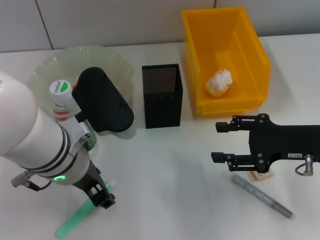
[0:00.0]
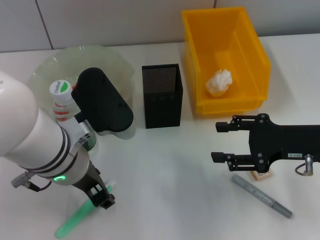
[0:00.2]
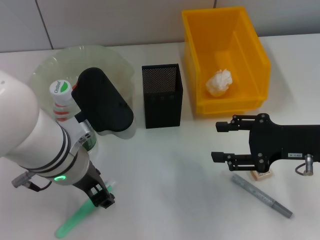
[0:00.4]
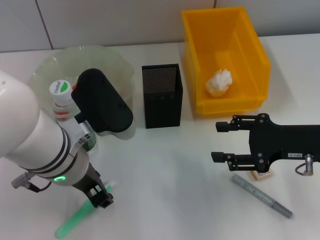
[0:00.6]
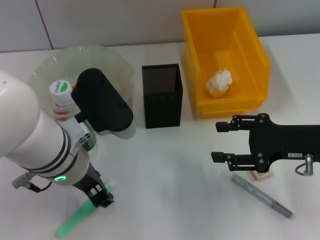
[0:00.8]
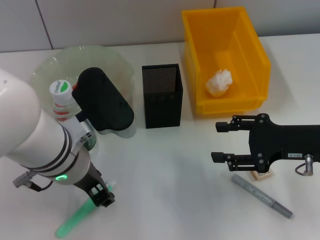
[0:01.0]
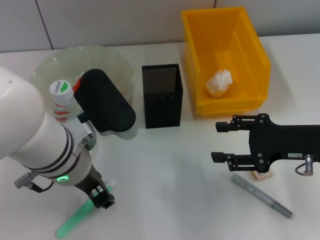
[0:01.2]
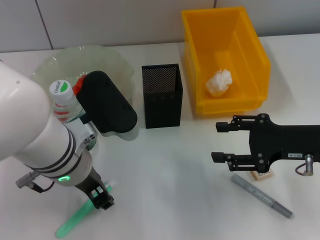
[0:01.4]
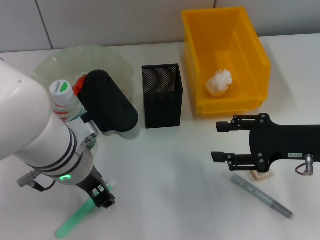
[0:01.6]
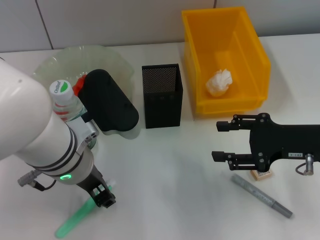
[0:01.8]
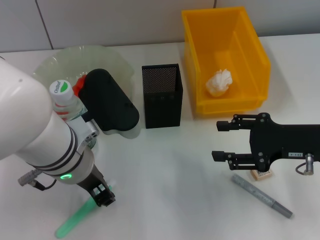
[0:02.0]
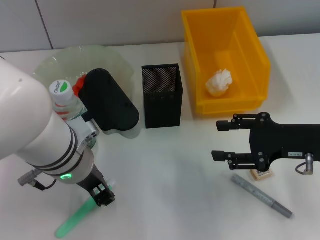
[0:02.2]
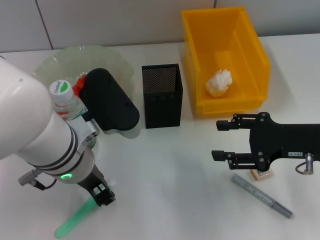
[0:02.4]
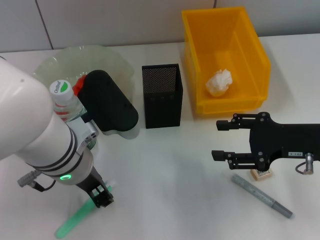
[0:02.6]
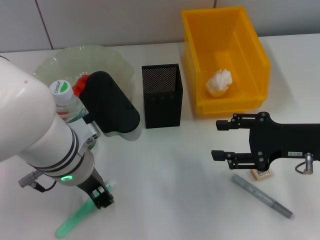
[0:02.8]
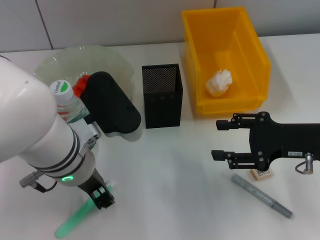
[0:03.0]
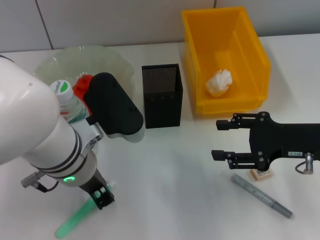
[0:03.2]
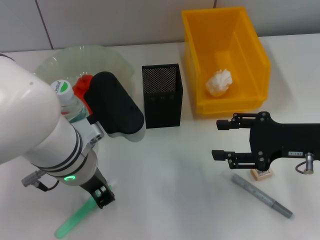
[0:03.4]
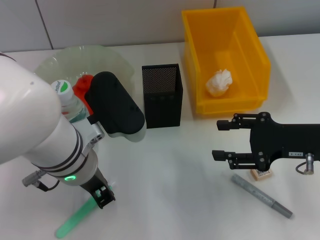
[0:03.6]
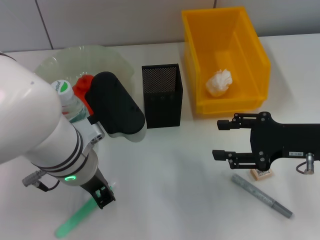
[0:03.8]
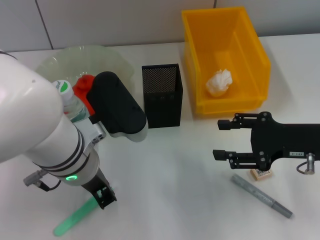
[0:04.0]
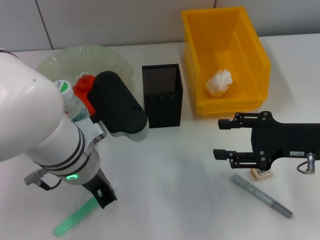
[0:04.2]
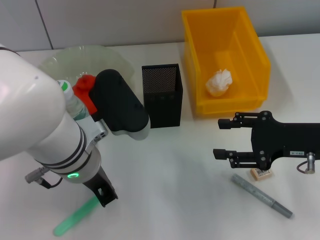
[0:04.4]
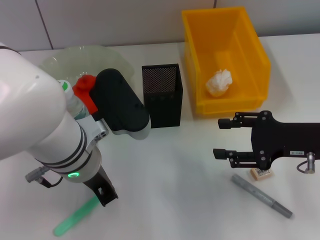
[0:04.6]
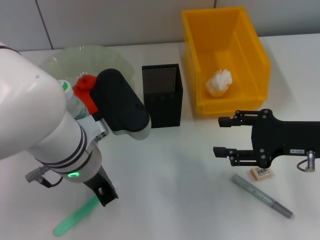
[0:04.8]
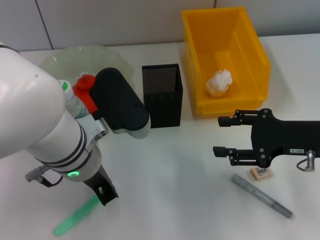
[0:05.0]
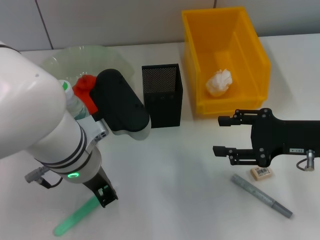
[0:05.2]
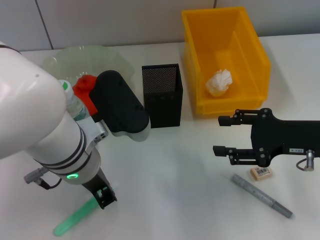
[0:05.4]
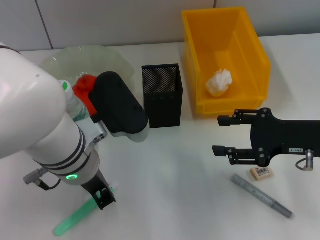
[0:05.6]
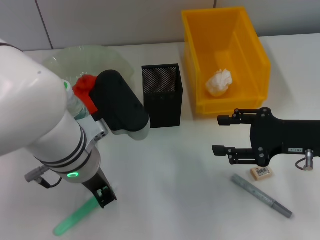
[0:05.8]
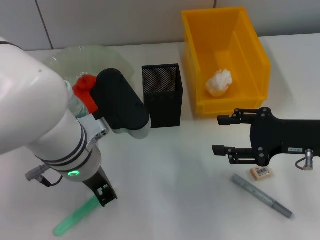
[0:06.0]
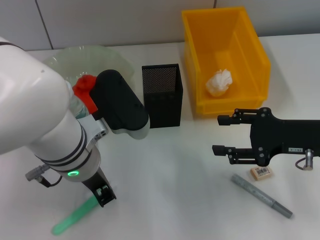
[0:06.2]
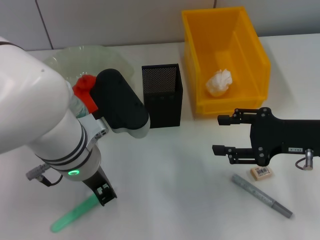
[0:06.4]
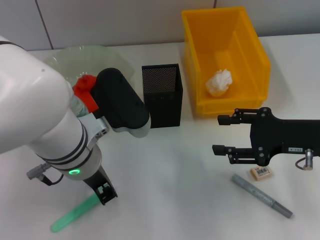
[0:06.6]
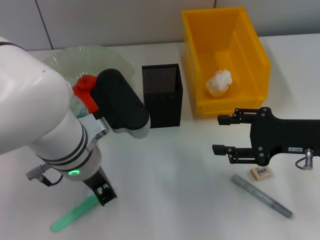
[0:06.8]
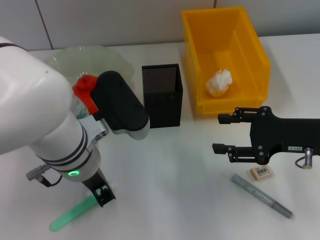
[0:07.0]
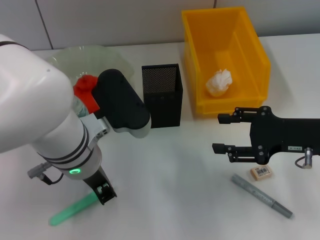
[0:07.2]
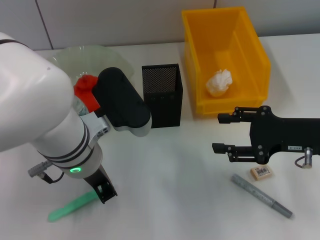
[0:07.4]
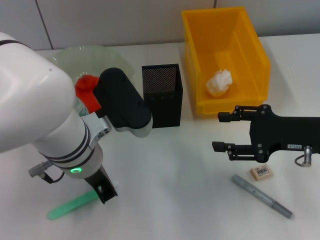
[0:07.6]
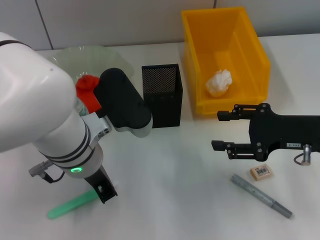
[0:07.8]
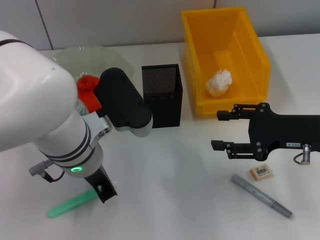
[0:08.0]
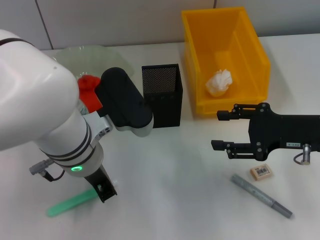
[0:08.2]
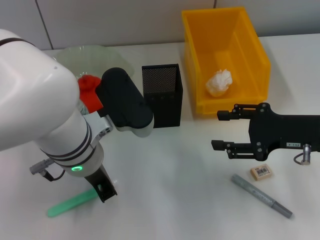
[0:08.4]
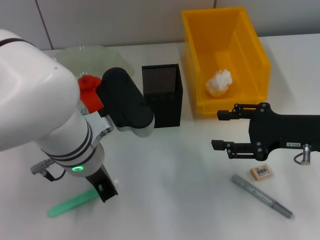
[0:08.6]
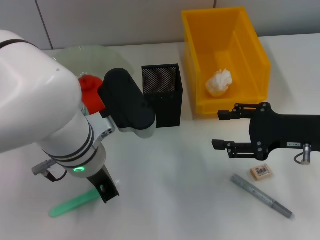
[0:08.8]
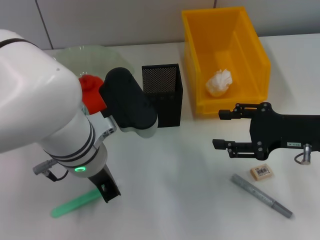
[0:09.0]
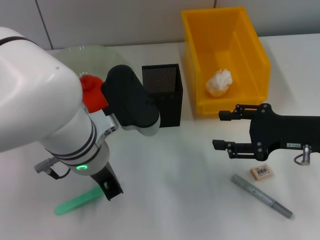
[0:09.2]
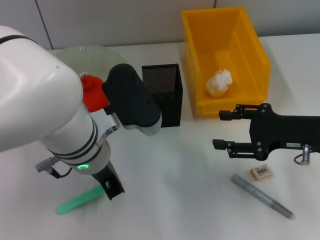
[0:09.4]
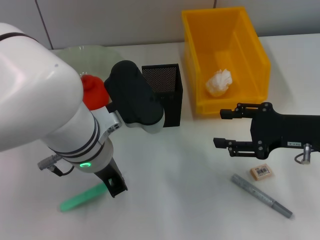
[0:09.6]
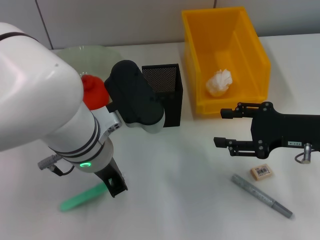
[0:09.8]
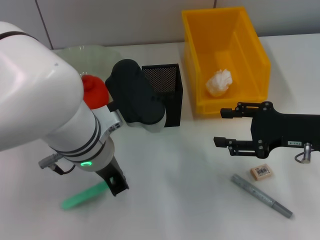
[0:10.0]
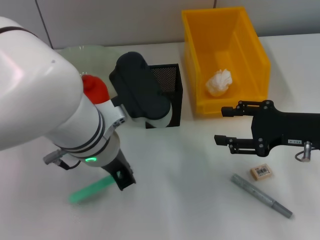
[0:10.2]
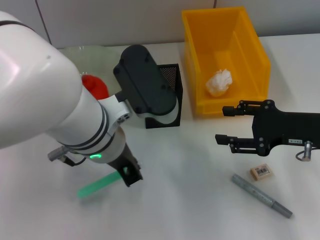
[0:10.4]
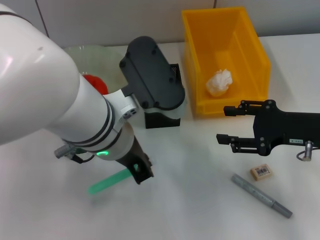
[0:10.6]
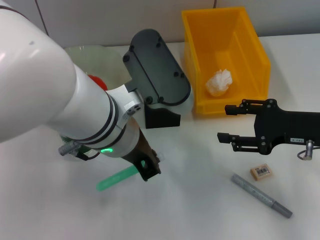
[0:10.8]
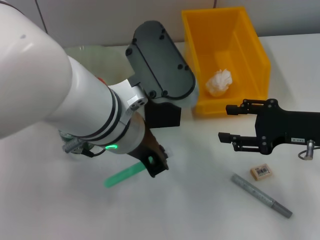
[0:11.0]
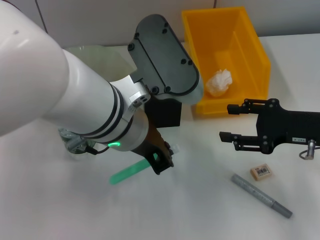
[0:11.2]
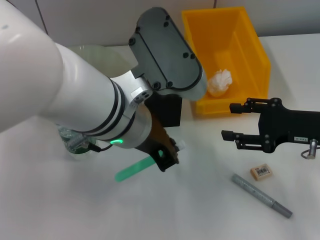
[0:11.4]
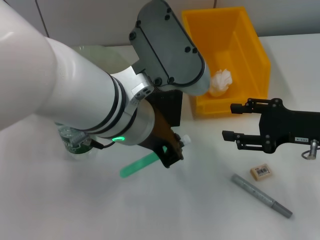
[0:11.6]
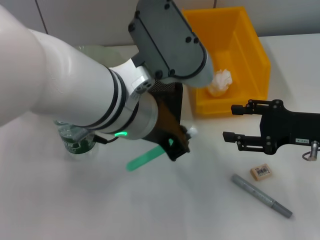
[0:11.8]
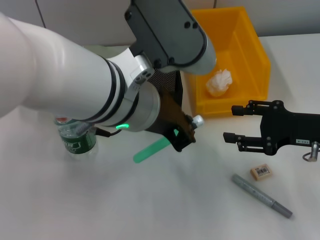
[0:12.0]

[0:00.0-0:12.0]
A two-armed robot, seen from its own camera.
Step, 0:00.0 to 0:07.6: Grab the blue utility knife with the left hand.
0:00.0 to 0:03.0: Both grippers stay about where they are.
0:03.0 to 0:04.4: The left gripper closes up.
0:04.4 to 0:09.0: Neither gripper changes place.
0:09.0 to 0:10.4: The grippers move only a little.
0:10.4 to 0:12.0: The left gripper moves upward, approximately 5 cm.

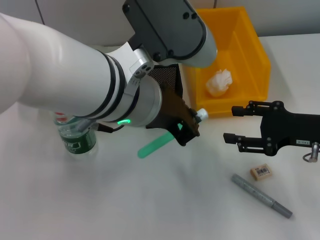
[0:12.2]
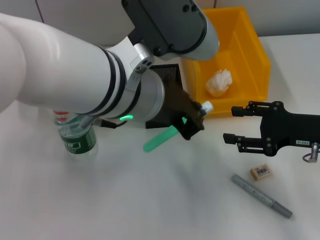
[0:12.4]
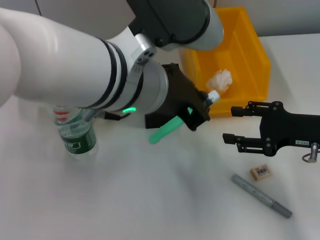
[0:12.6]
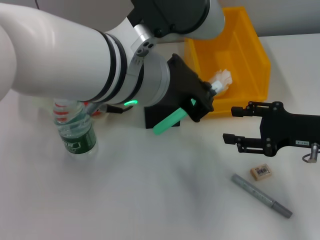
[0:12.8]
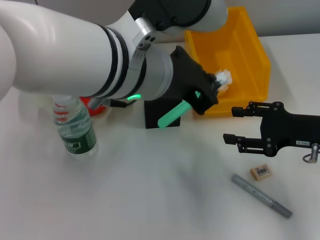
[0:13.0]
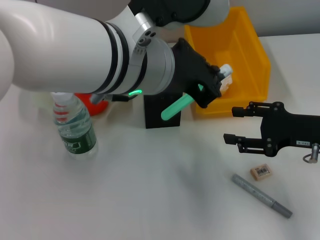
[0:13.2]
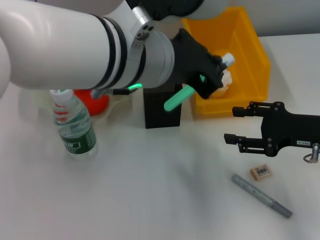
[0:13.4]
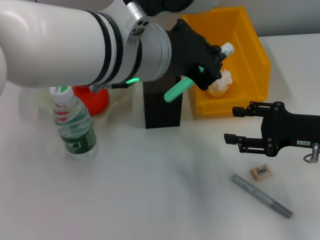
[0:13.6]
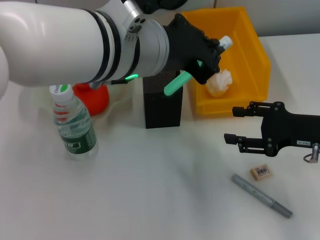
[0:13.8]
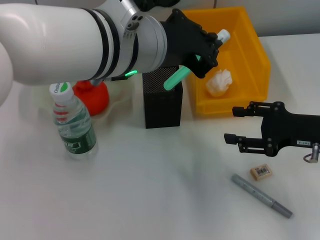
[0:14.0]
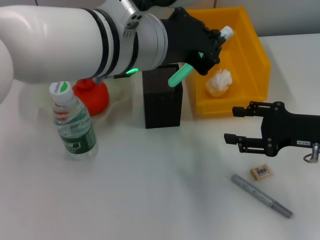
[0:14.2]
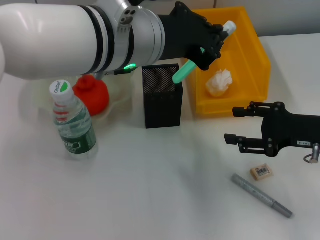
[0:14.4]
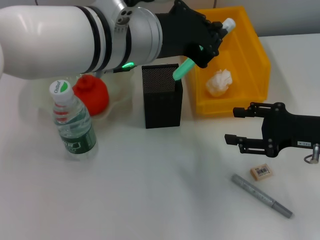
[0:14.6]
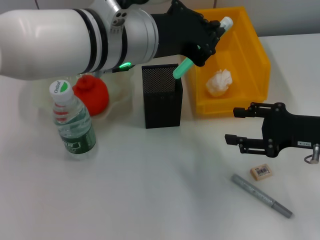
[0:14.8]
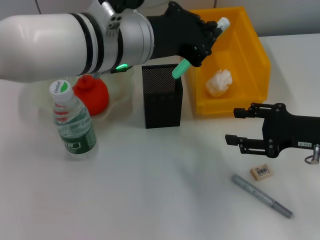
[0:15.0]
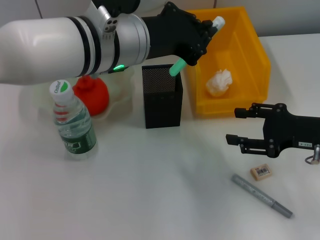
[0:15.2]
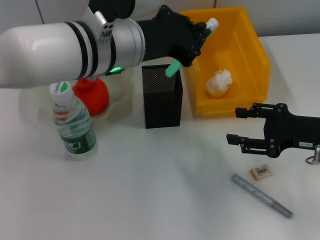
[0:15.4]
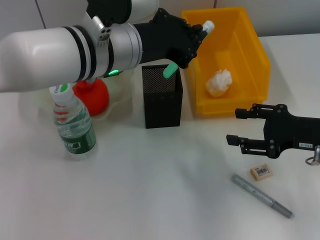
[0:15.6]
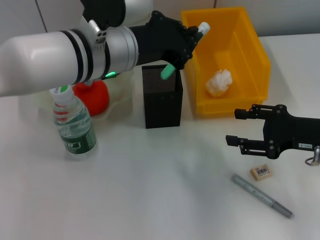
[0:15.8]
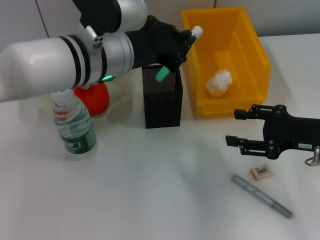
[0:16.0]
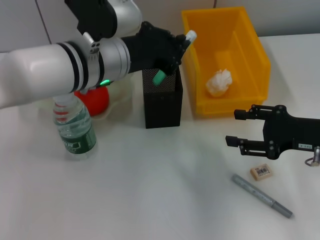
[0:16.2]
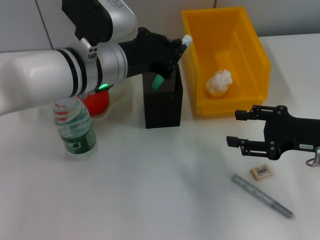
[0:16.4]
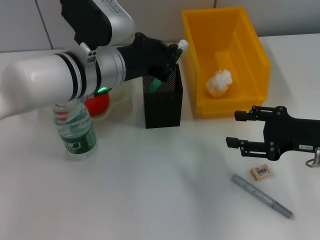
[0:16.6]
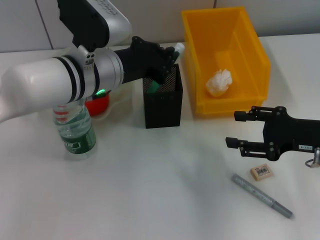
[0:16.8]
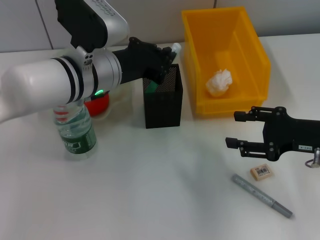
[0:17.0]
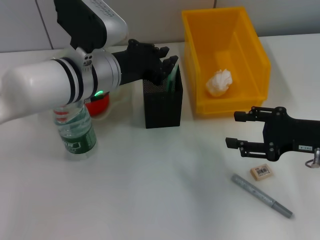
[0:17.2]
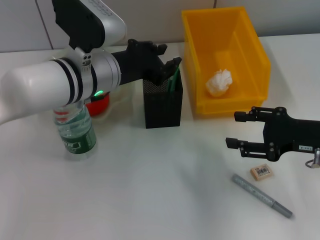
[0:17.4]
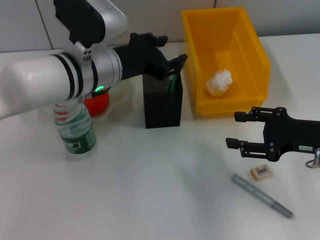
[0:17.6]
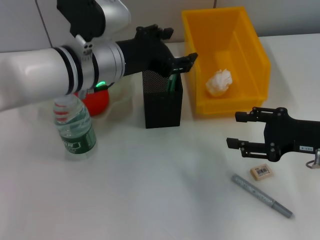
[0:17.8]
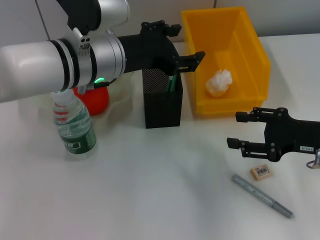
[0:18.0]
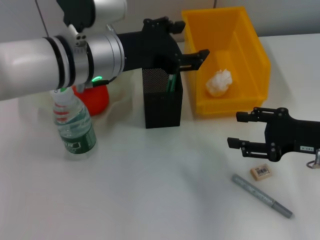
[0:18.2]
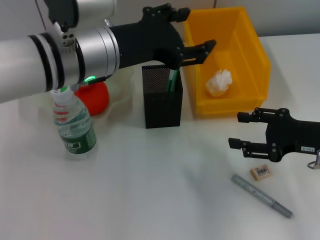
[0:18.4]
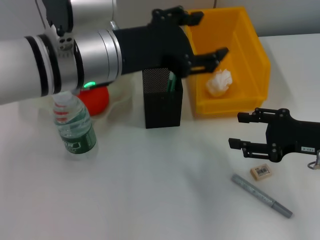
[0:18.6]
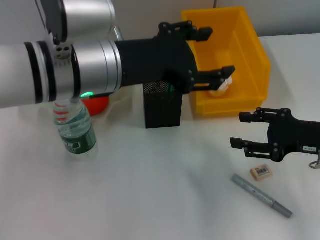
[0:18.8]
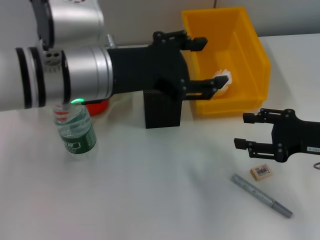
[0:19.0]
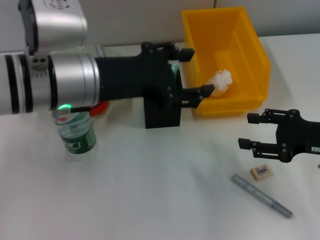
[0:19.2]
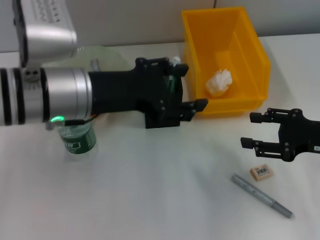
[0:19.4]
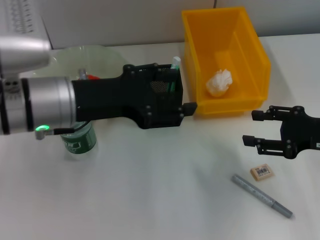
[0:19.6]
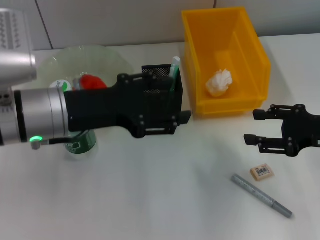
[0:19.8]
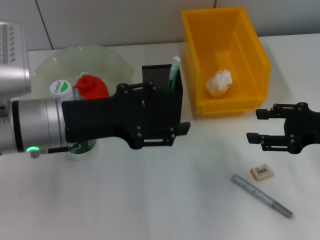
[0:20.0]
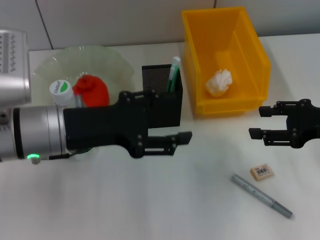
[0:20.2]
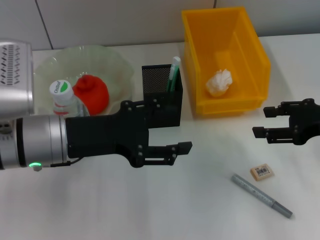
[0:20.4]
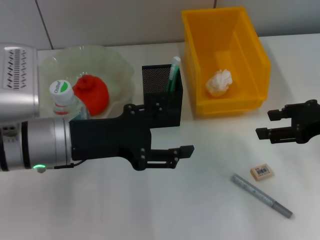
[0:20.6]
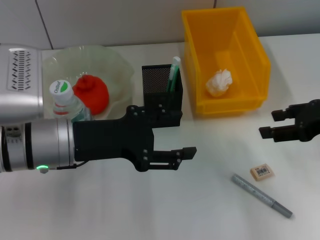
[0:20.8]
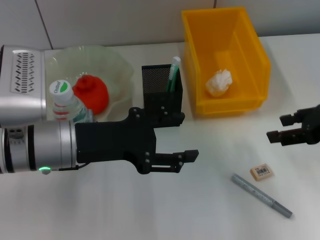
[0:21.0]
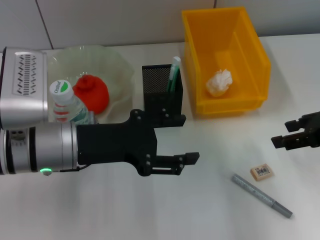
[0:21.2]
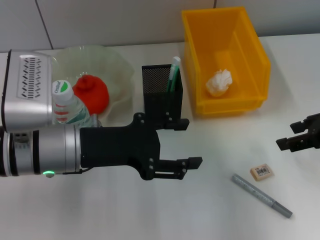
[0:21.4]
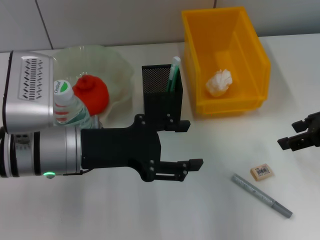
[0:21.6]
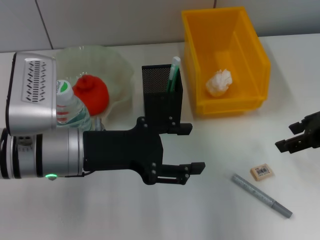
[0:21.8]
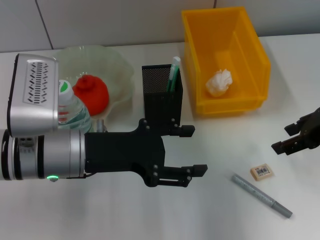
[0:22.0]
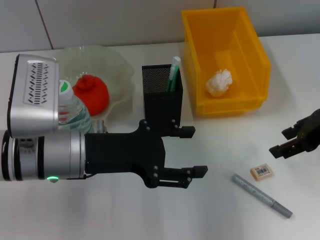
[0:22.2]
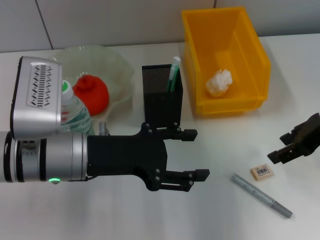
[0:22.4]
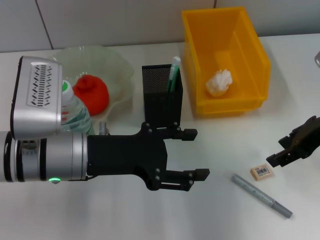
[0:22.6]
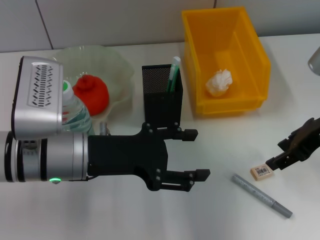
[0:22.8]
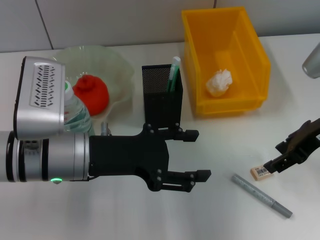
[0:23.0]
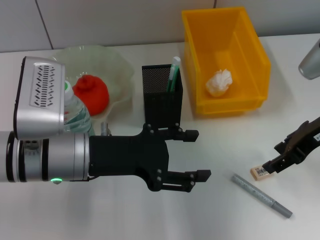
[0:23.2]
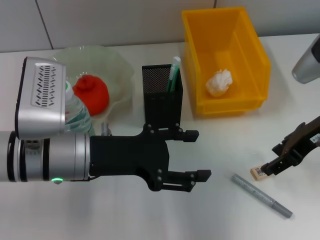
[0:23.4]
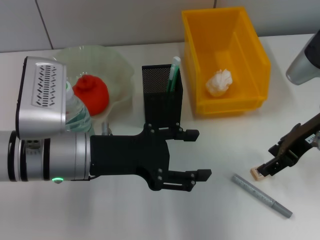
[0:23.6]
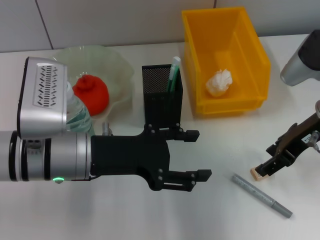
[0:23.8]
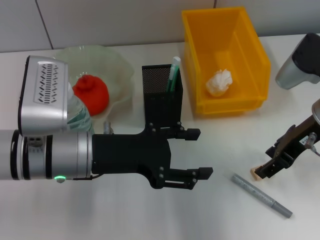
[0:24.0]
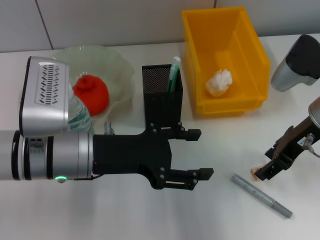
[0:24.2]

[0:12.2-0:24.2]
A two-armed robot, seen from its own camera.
Step, 0:12.2 to 0:17.2: Place the blue utility knife into the pen holder with the left hand.
0:13.8 to 0:15.2: The left gripper changes place by approximately 5 cm.
0:15.2 to 0:16.6: The left gripper shifts approximately 5 cm downward.
0:16.6 to 0:18.2: The left gripper opens its fingers.
0:18.2 to 0:19.8: The left gripper moves to the left and backward, approximately 10 cm.
0:19.8 to 0:21.2: The right gripper goes approximately 5 cm upward.
0:21.2 to 0:22.6: There are only small adjustments of the grippers.
0:22.6 to 0:24.2: The grippers stay close to where they were, moving slightly.
